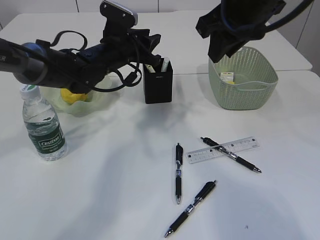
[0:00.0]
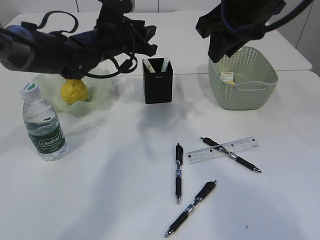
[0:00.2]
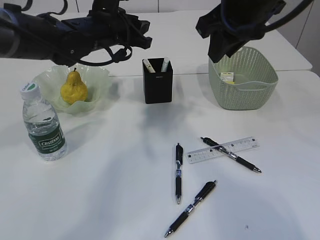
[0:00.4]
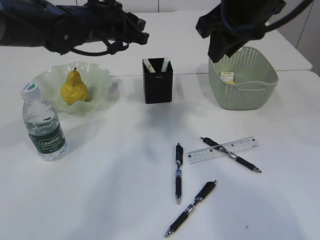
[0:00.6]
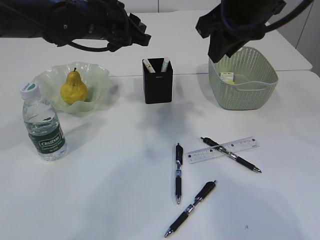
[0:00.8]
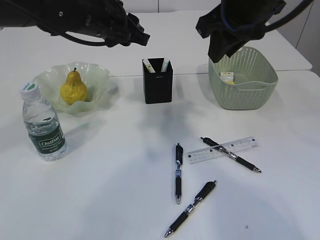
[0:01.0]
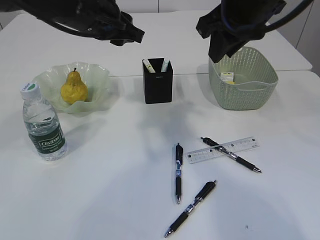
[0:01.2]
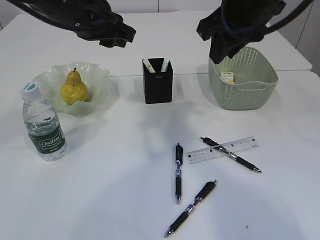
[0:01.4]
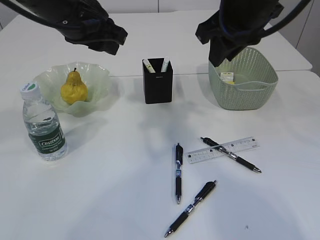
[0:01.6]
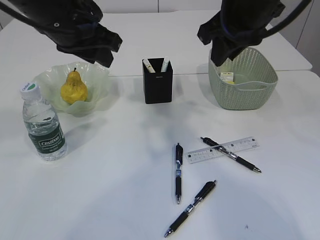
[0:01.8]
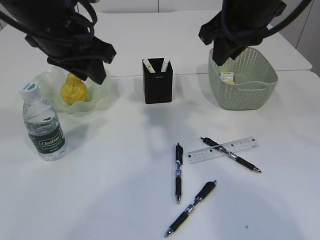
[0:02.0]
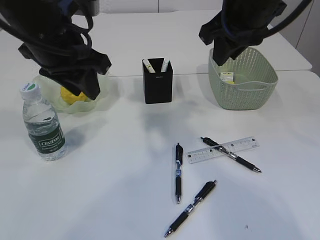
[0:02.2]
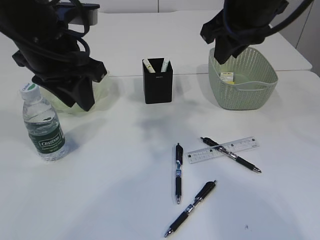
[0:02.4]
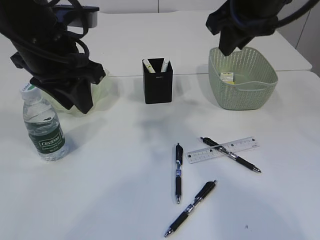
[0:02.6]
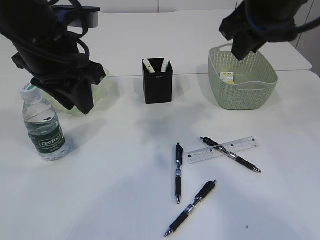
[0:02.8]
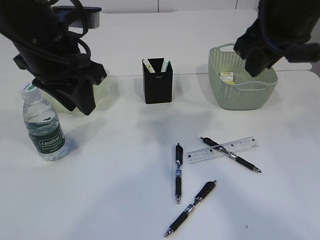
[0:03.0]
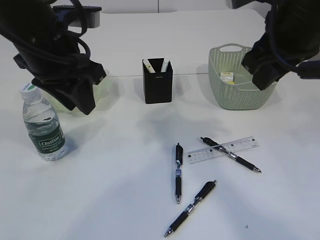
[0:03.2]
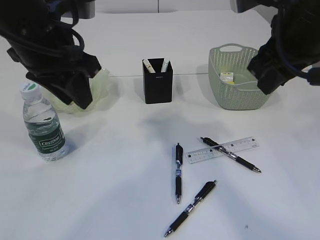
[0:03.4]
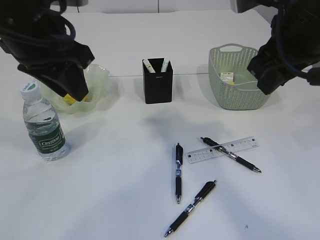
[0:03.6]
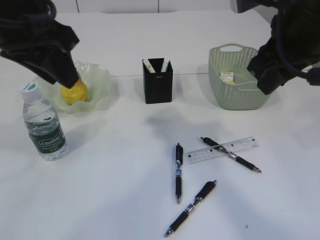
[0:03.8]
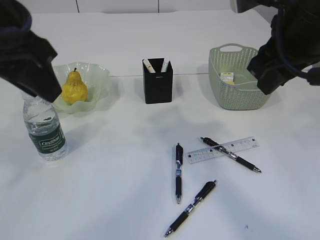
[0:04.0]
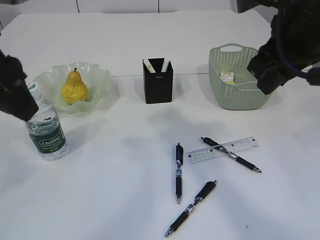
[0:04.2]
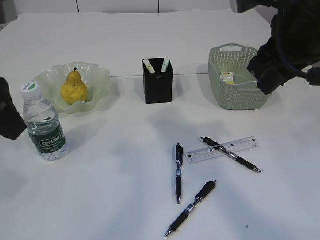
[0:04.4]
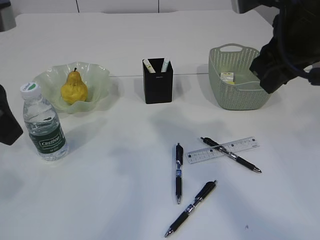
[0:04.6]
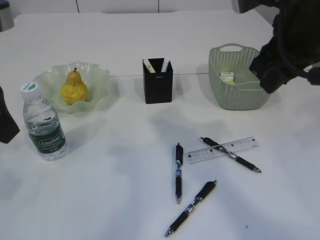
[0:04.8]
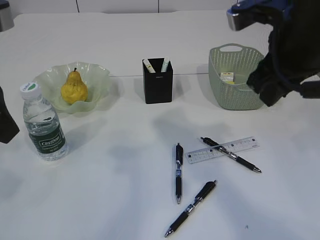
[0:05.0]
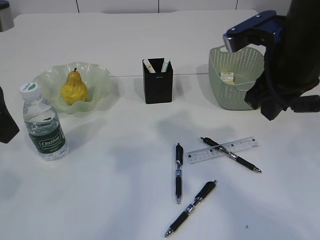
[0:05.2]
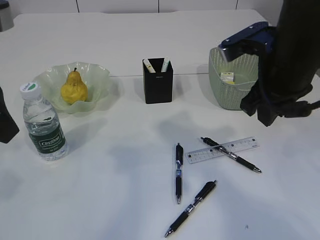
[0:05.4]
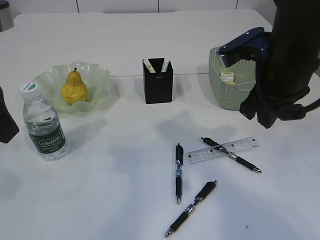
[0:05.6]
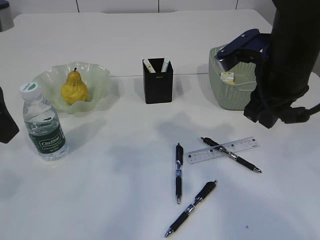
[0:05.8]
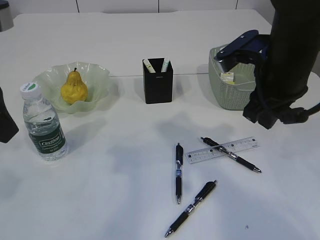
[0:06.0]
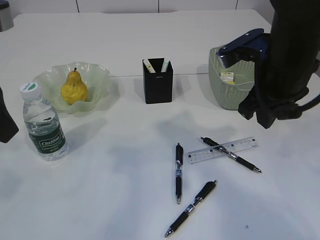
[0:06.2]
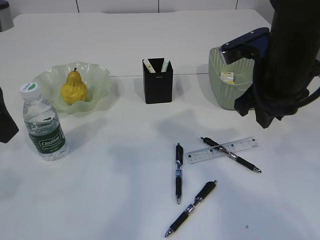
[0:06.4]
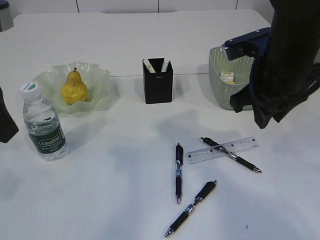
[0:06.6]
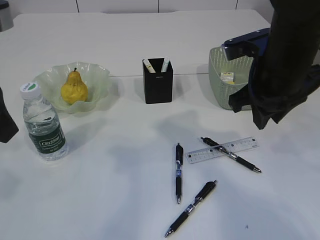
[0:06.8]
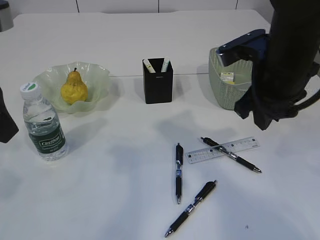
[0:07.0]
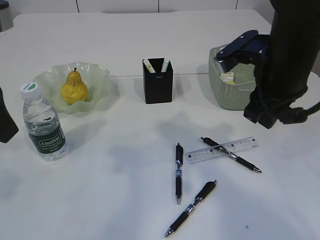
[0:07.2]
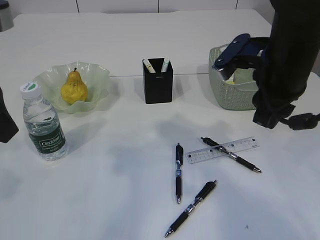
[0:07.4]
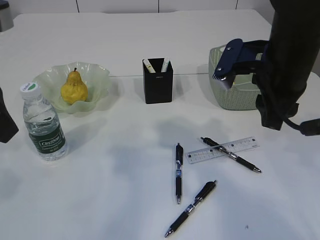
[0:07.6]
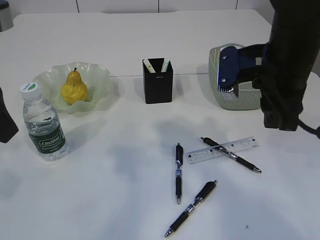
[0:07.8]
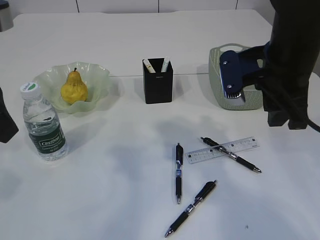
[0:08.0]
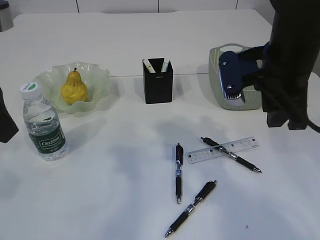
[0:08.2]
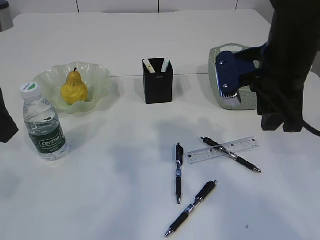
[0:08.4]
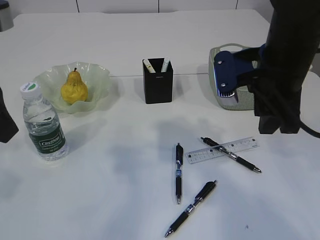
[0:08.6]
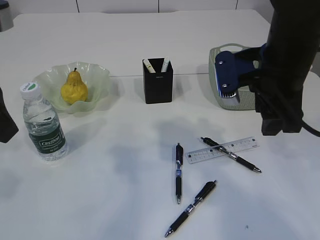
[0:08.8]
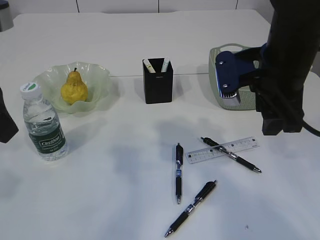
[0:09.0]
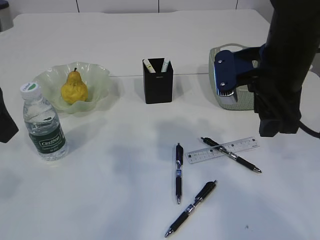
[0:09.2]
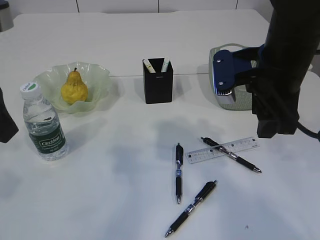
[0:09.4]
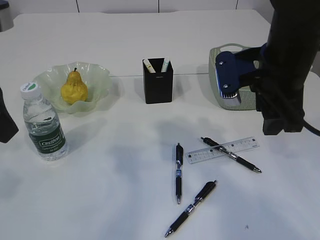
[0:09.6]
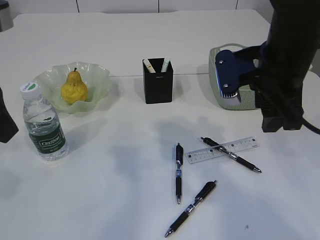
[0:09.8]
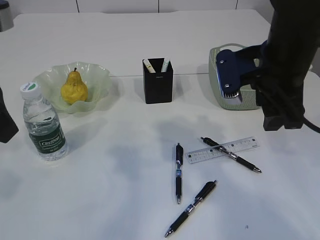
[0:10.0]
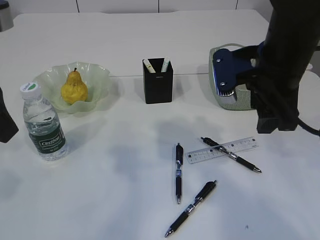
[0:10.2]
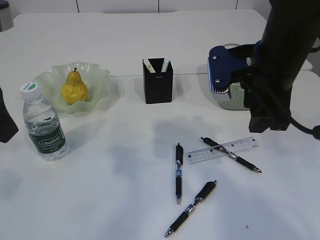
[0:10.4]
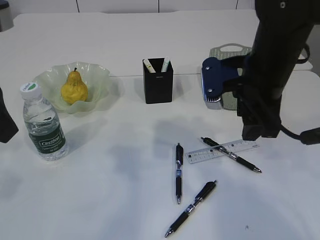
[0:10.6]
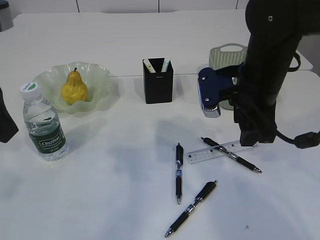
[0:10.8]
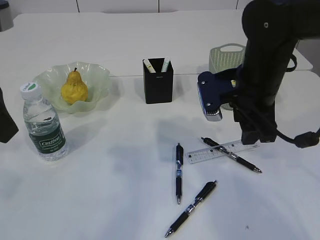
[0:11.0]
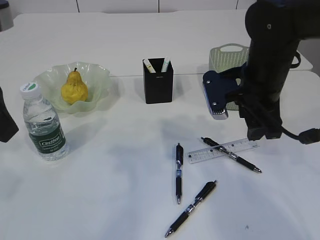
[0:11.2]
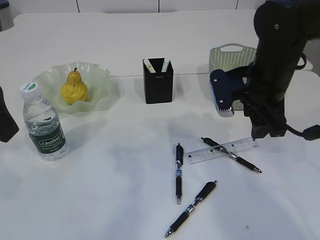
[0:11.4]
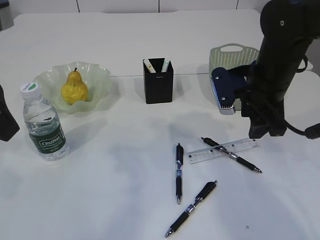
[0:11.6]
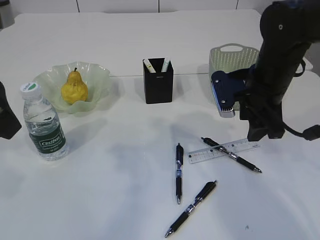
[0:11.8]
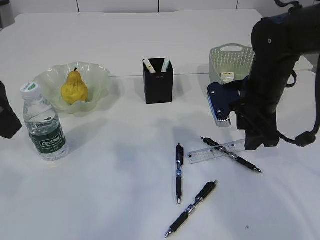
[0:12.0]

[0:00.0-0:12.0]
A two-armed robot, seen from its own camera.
0:00.0 to 0:01.6: The left gripper moves upward and backward, some 15 cm.
0:01.6 to 0:03.0: The left gripper moves backward, about 5 cm; the right gripper changes place by about 5 cm.
0:03.0 to 0:04.4: The left gripper travels backward and to the left by some 10 cm.
0:04.4 to 0:06.0: The right gripper shifts about 5 cm downward.
0:07.6 to 0:09.0: The right gripper opens its fingers.
0:09.0 to 0:10.4: There are only small adjustments of the grippers.
0:10.4 to 0:12.0: The right gripper moves downward, some 10 cm.

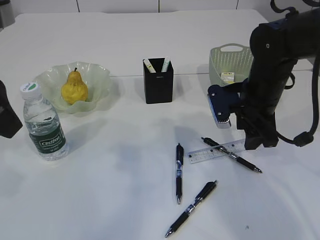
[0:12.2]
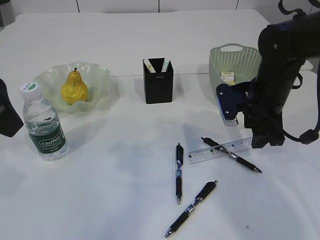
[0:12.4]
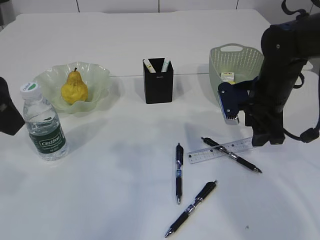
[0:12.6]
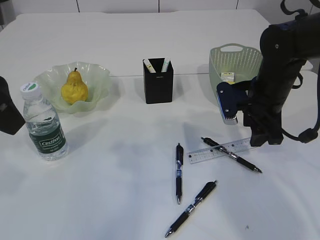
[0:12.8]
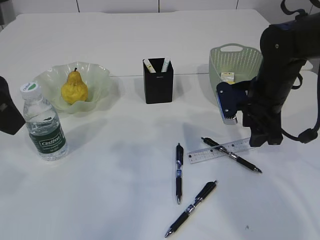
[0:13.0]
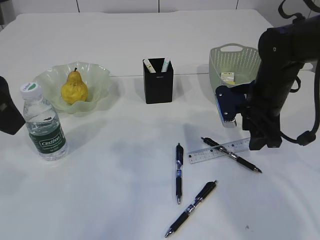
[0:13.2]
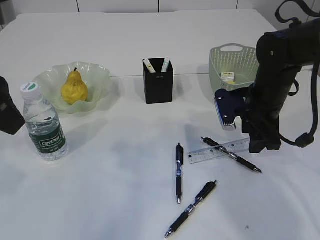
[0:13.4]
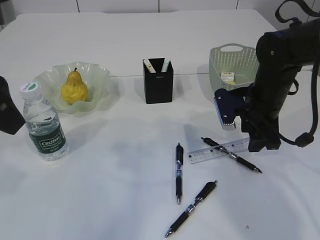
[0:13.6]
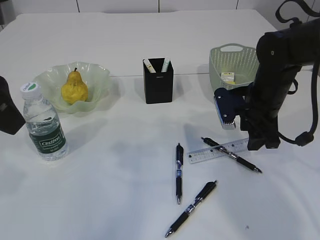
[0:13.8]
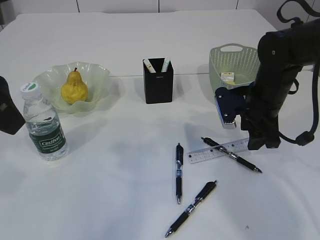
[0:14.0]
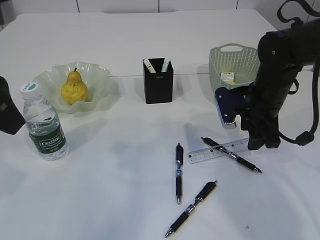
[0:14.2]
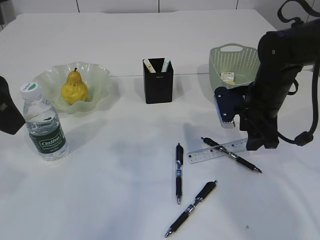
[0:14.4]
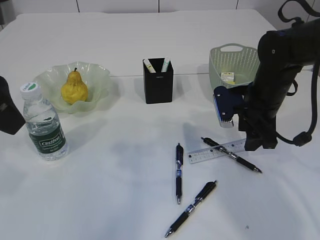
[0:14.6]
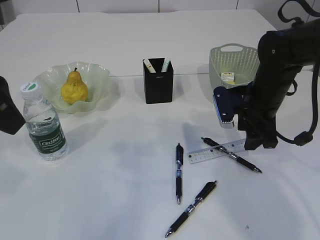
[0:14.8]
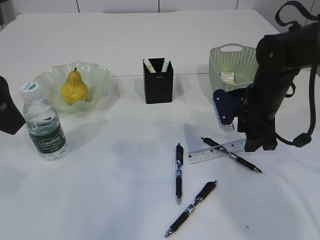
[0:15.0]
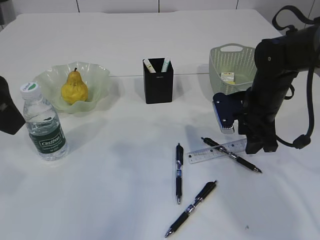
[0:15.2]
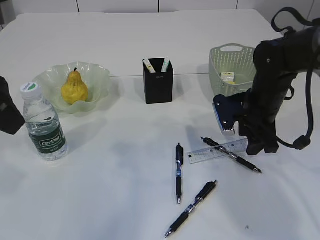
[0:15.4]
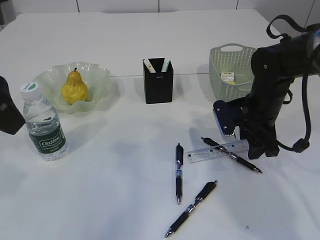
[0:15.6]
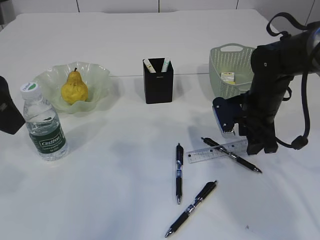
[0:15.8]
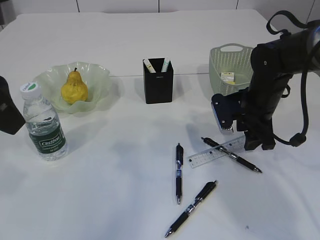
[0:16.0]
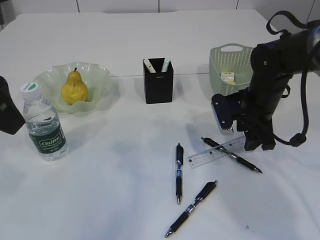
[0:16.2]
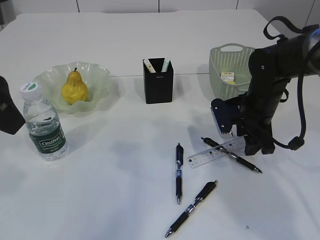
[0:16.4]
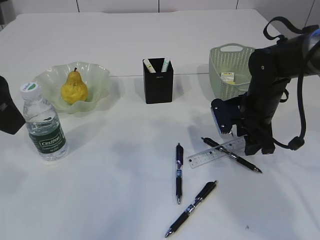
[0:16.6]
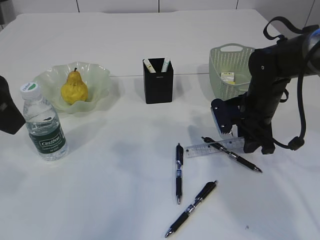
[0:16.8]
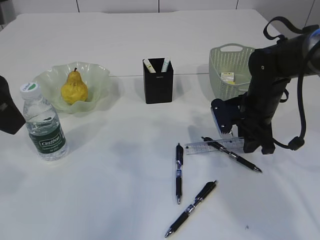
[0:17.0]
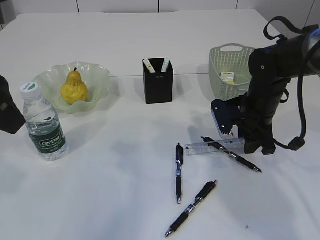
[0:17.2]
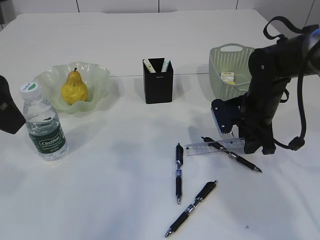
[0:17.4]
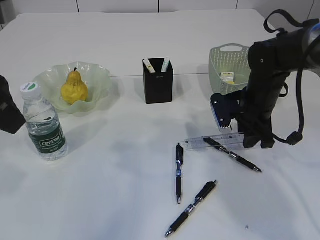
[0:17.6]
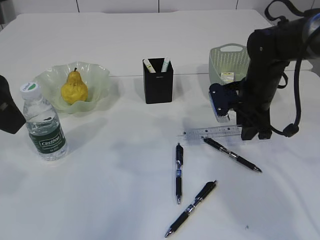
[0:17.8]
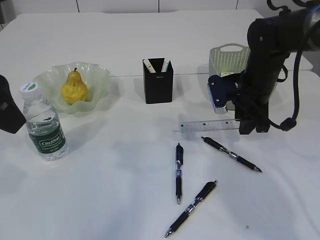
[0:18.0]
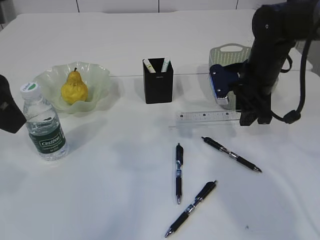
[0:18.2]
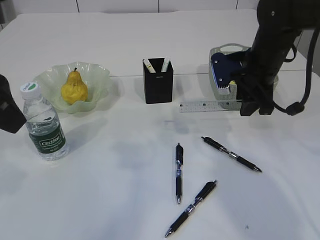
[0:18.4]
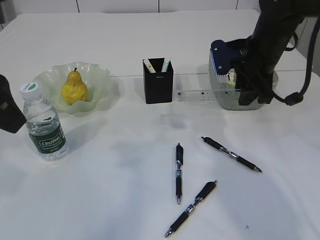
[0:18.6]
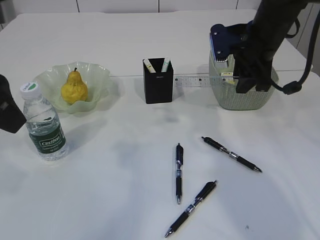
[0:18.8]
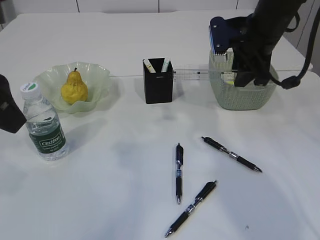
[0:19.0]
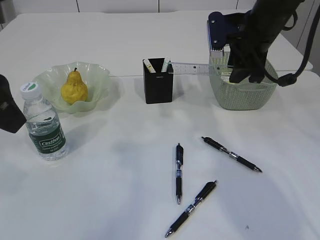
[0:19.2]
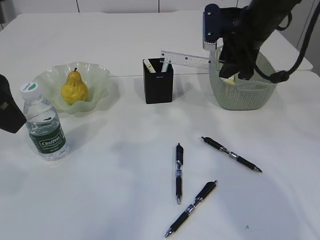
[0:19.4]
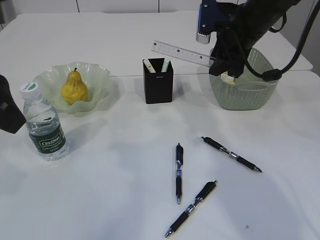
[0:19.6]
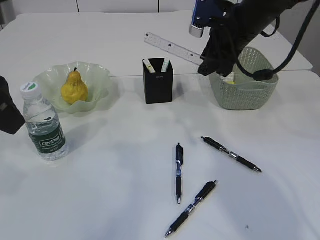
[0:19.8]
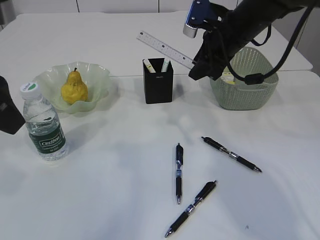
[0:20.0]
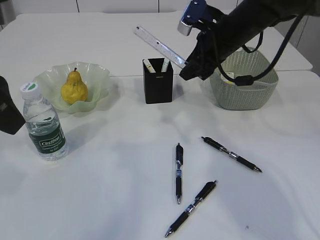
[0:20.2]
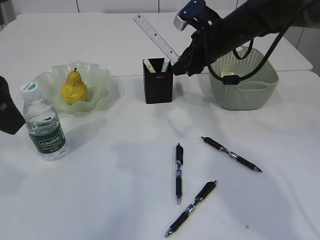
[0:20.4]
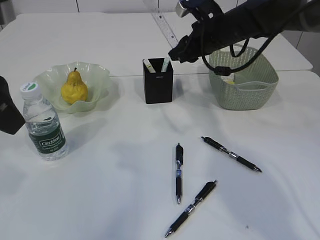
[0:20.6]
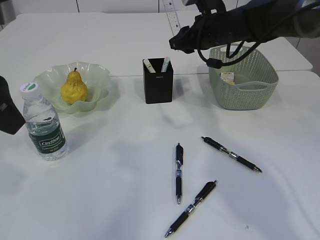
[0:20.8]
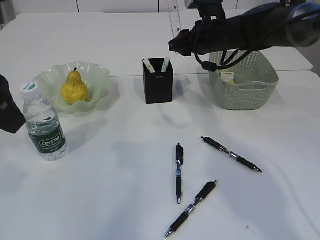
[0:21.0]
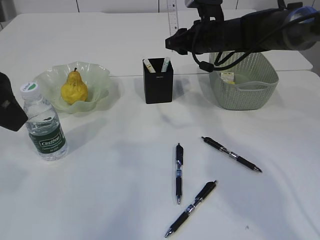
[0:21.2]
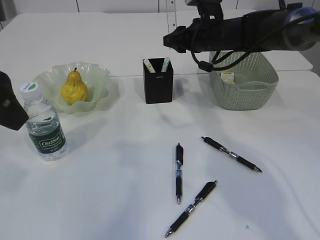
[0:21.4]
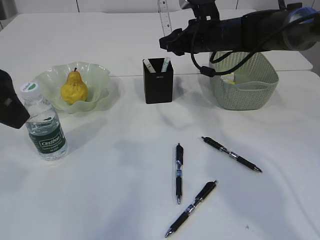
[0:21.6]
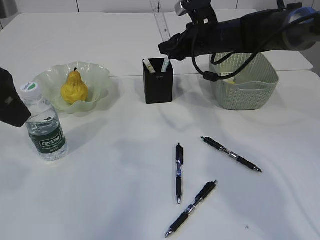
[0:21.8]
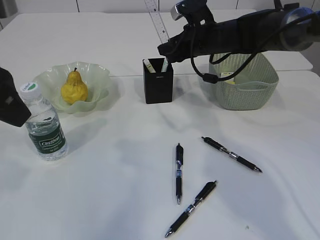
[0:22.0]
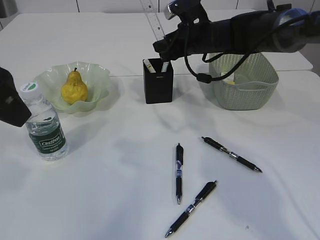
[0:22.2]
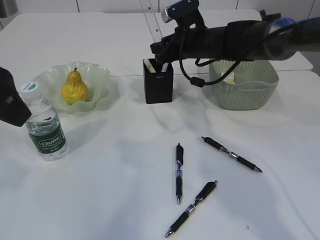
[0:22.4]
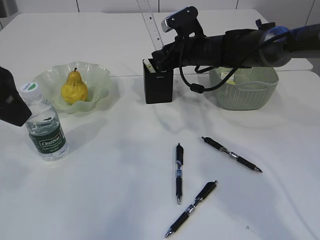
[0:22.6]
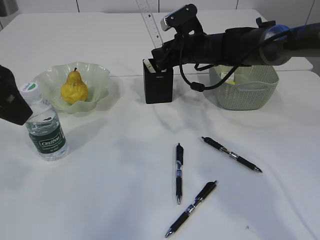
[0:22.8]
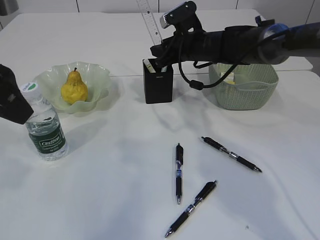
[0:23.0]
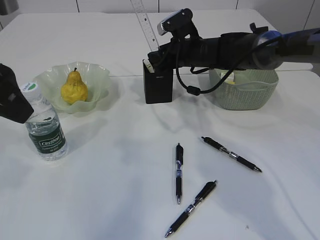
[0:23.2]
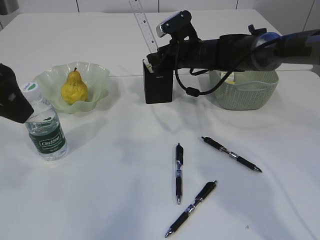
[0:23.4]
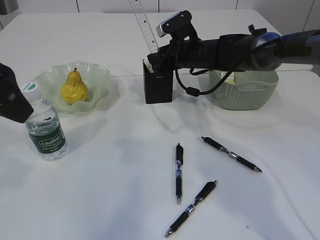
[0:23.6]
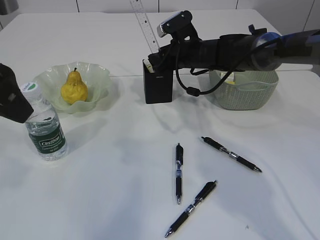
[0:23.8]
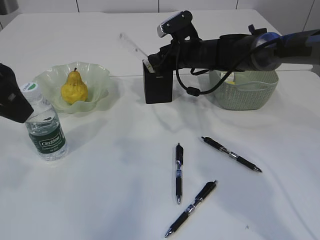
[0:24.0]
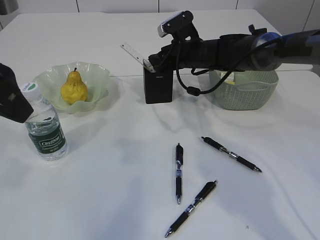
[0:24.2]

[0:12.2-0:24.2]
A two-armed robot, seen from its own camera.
Step, 0:12.2 to 0:18.2: pick up the ruler.
0:12.2 to 0:13.8: The grippers move only a little.
0:13.8 to 0:15.2: Both grippers stay put.
0:15.2 to 0:16.6: The grippers stay close to where they were, moving slightly.
0:16.6 to 0:18.2: The right gripper heads upward, covering roughly 5 cm, and closes its fingers.
0:18.2 to 0:19.8: The right gripper shifts about 10 cm upward.
0:19.8 to 0:21.2: The right gripper goes approximately 10 cm forward and downward.
0:22.6 to 0:24.2: The grippers make only small movements.
